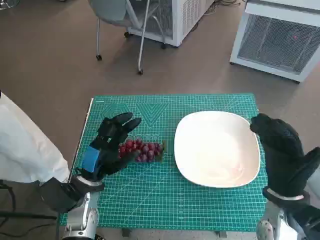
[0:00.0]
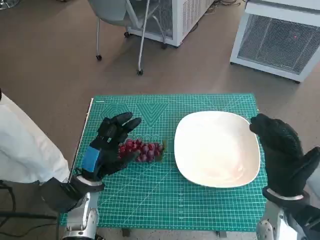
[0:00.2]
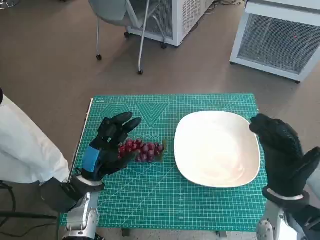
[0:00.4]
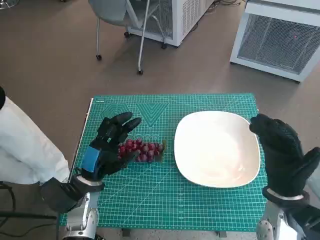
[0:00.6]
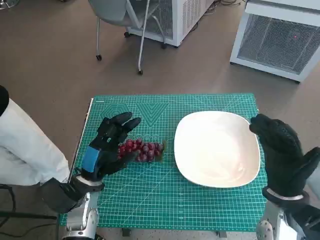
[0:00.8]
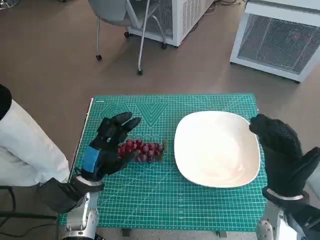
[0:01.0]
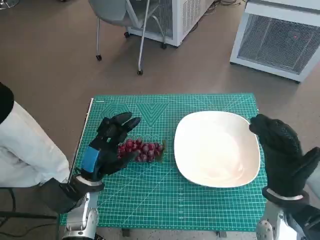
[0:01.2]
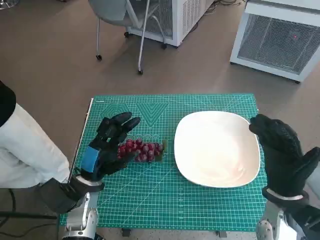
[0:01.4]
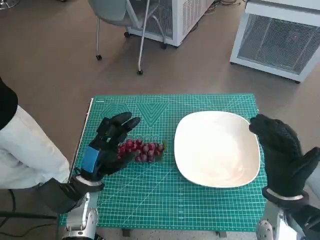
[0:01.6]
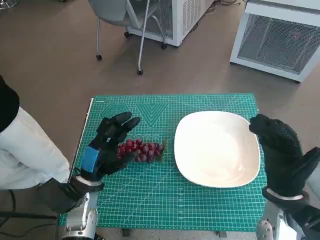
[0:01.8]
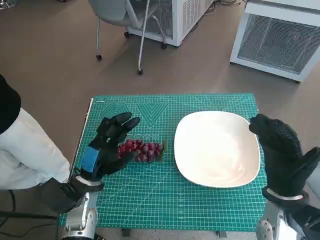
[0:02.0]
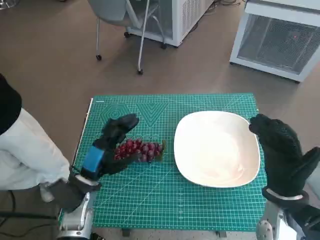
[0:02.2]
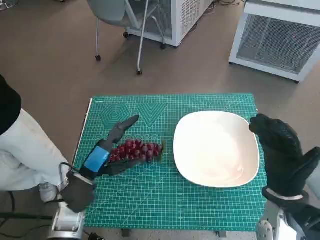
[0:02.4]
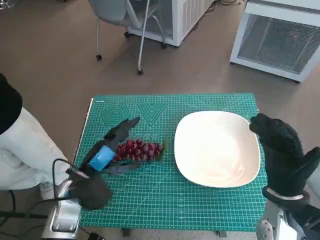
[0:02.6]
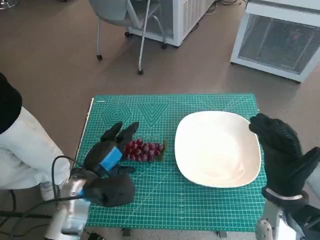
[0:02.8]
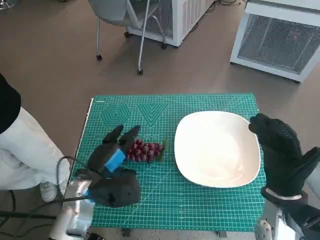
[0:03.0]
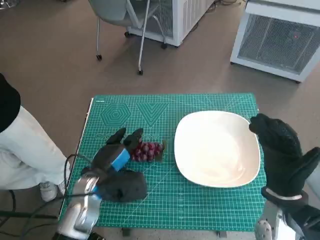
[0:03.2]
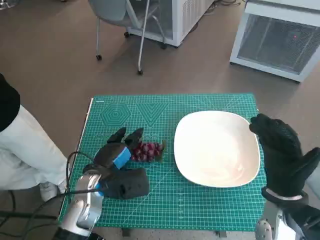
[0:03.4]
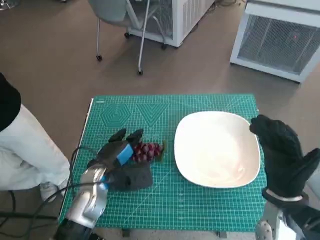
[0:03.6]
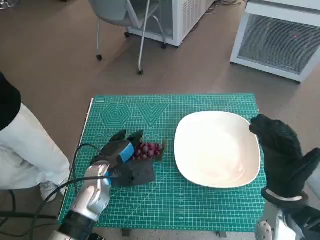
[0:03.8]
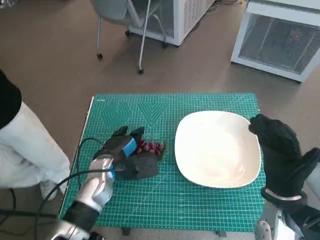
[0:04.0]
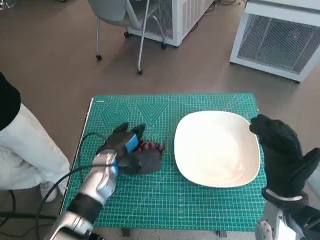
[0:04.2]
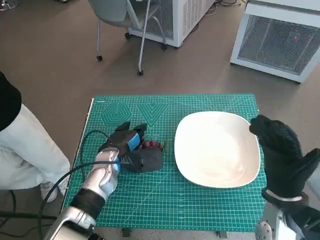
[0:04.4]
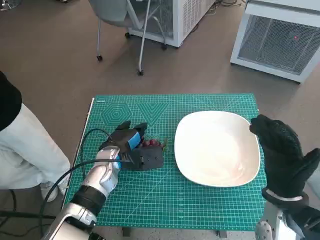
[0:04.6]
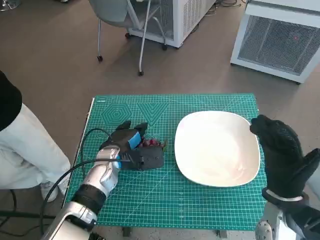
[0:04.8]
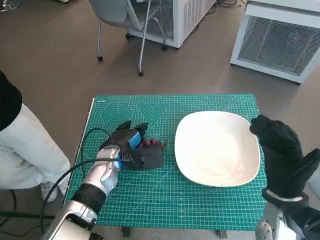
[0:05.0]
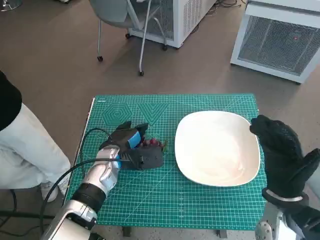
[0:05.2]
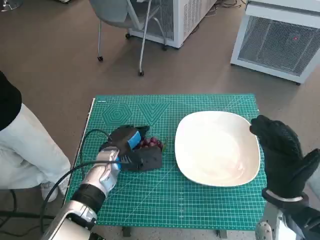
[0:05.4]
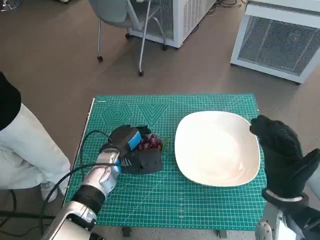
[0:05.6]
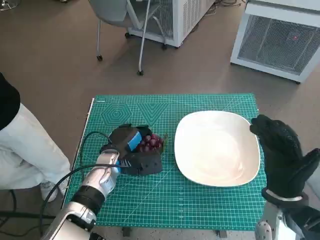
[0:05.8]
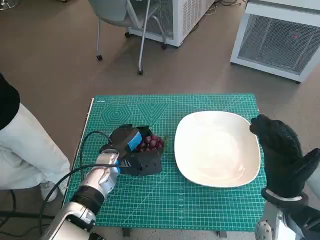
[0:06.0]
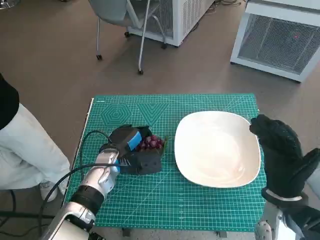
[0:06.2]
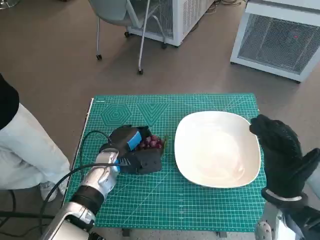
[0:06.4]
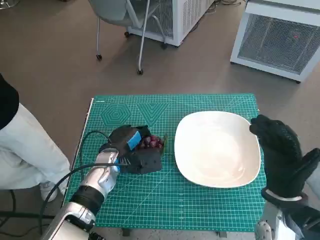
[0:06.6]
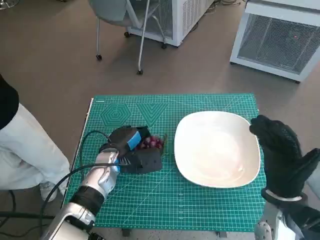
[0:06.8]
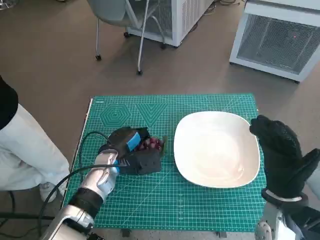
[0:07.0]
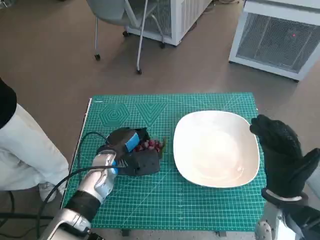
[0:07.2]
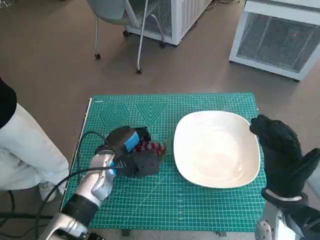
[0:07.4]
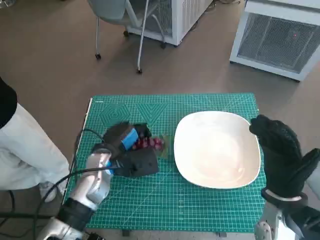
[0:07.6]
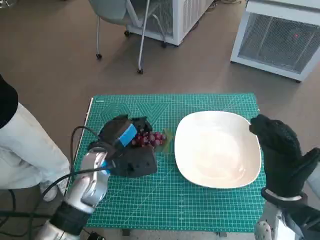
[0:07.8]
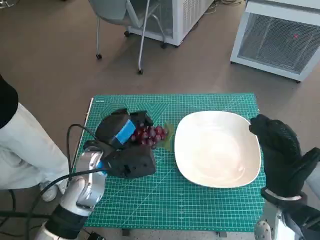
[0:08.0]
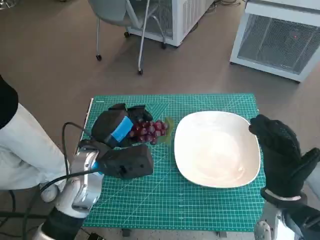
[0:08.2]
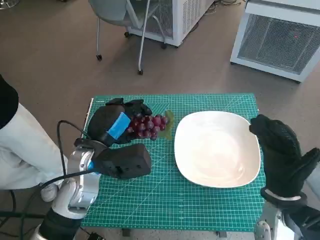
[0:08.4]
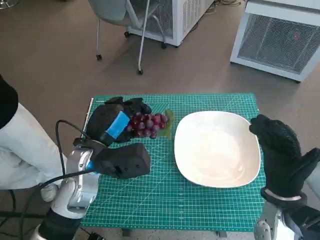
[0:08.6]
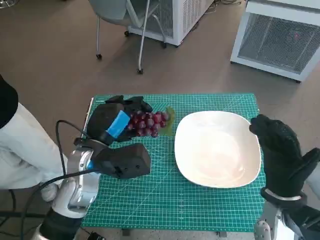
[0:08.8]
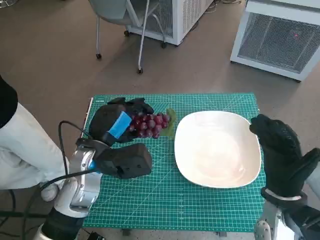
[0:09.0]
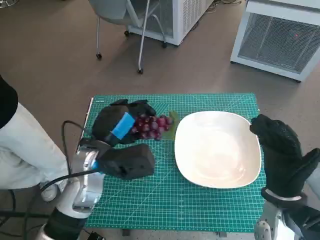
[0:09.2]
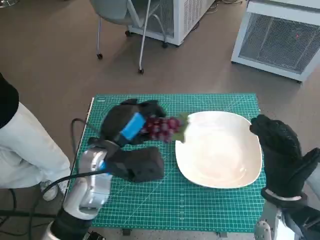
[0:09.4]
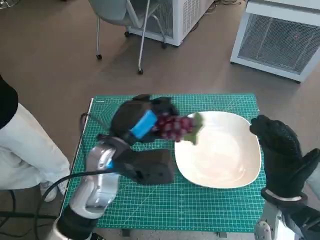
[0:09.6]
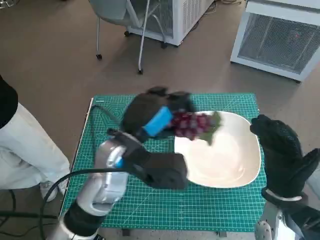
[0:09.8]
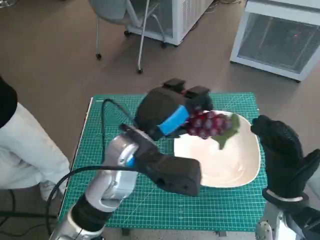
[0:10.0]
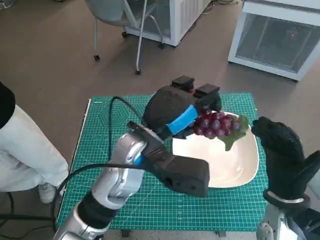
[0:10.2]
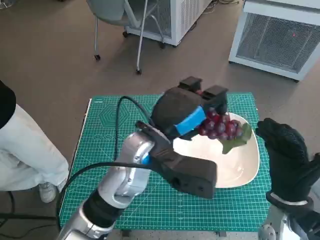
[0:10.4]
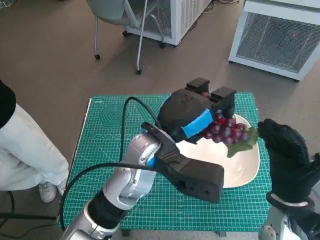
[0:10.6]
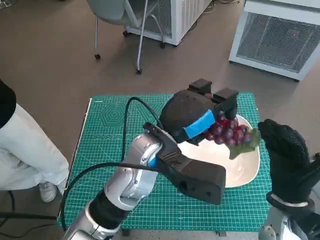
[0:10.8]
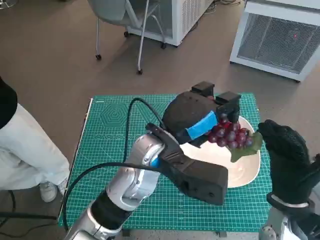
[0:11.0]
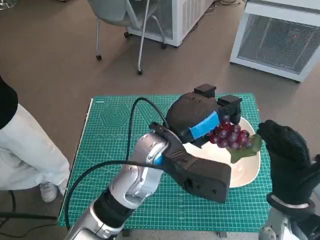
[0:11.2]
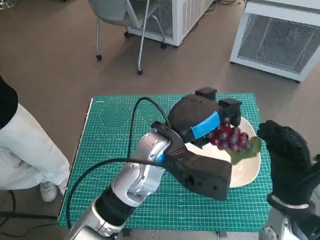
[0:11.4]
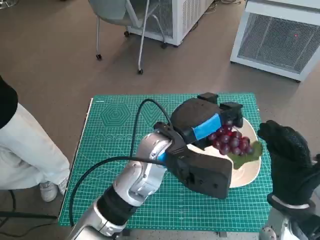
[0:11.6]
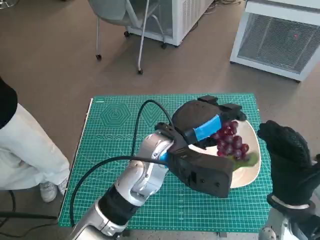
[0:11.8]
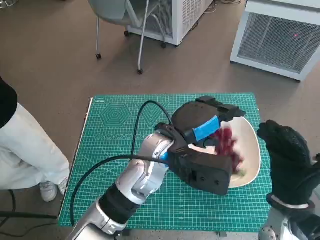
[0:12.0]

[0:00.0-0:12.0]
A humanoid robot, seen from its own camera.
Task of the whole recording: Pick up the grapes and put them on the plate.
Step, 0:00.0 to 0:07.0: Grasp the grapes with left hand.
0:03.0 to 0:04.4: The left hand is displaced forward by about 5 cm.
0:04.4 to 0:07.6: The hands make only small movements.
0:07.6 to 0:09.0: The left hand moves upward, approximately 5 cm.
0:09.0 to 0:10.4: The left hand is displaced to the right by some 10 cm.

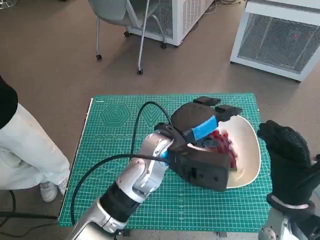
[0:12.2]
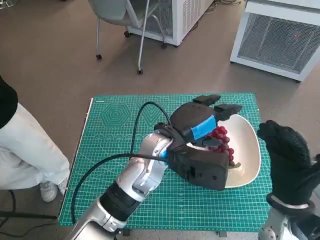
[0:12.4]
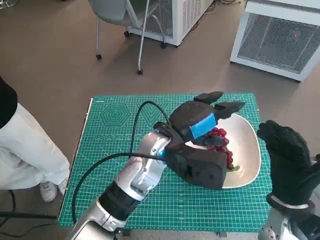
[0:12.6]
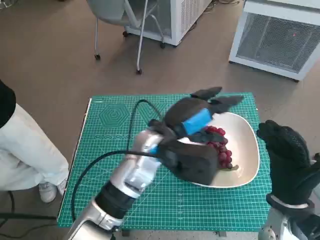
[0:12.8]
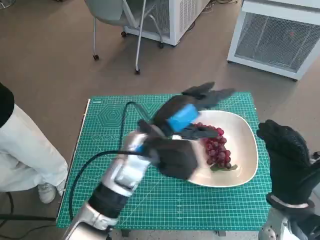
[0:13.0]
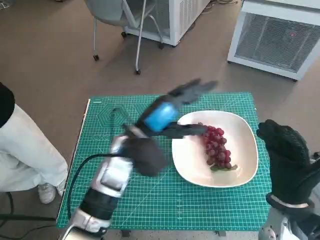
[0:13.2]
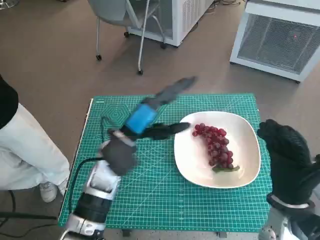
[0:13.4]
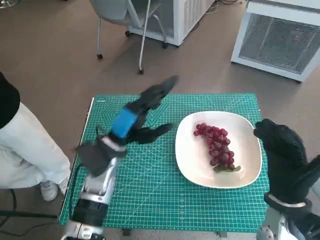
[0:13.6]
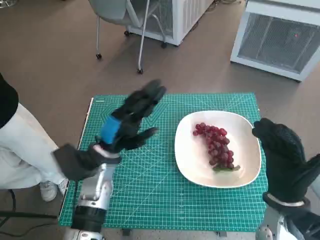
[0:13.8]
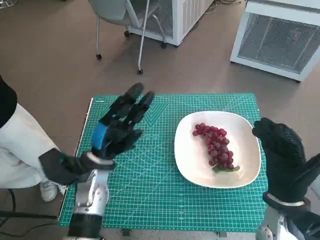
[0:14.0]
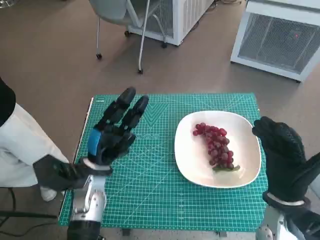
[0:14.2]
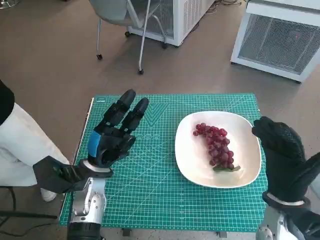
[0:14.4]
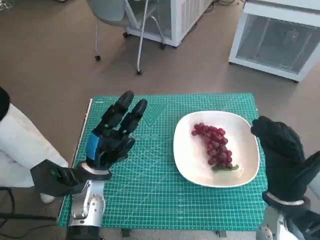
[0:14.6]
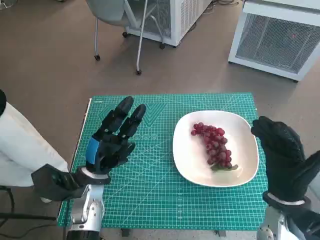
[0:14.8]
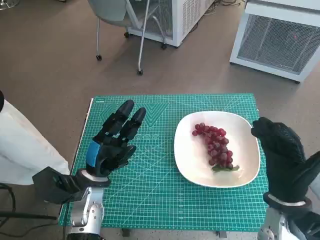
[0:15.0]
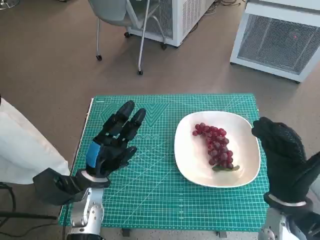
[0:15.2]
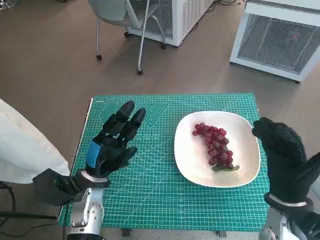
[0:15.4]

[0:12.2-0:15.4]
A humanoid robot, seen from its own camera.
Task of the whole recording: Pick up the grapes and put them on the plate.
0:12.2 to 0:13.8: The left hand heads to the left and downward, covering roughly 15 cm.
0:13.8 to 0:15.4: The left hand changes place by roughly 5 cm.

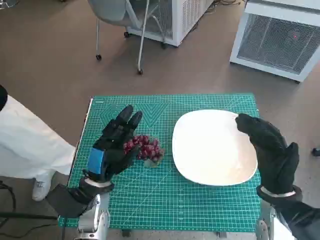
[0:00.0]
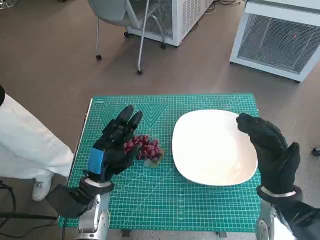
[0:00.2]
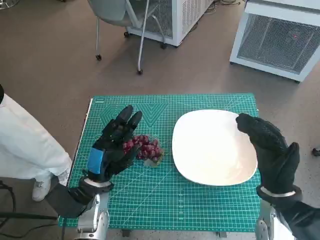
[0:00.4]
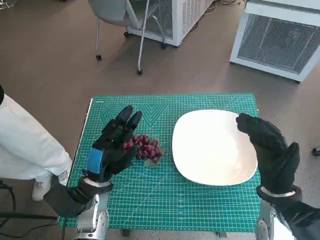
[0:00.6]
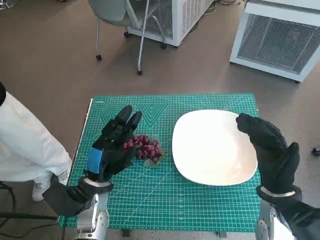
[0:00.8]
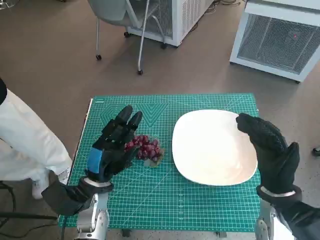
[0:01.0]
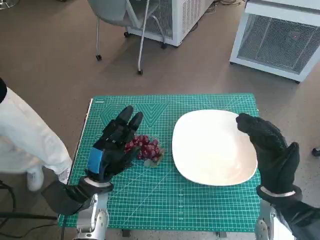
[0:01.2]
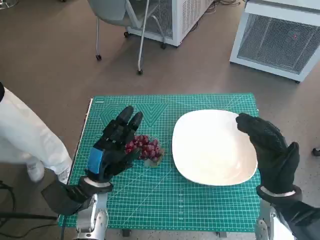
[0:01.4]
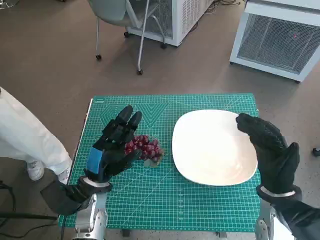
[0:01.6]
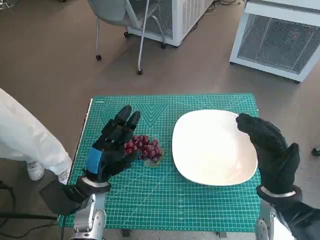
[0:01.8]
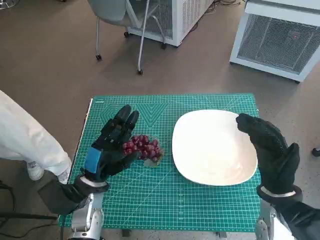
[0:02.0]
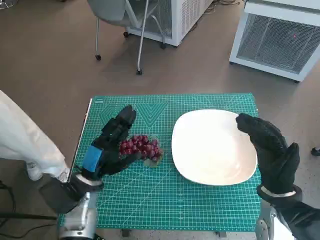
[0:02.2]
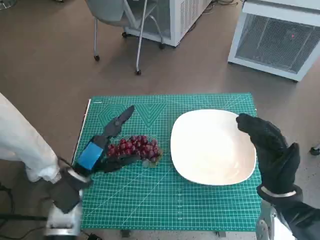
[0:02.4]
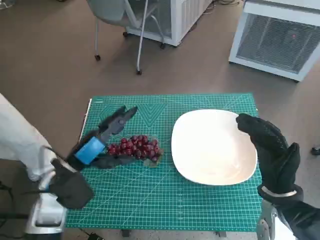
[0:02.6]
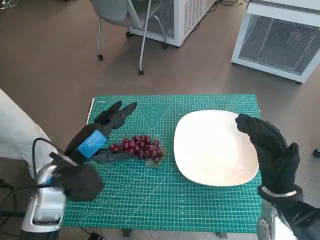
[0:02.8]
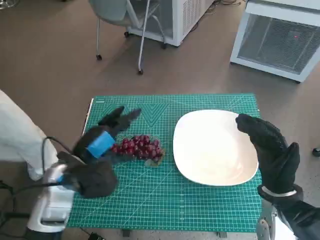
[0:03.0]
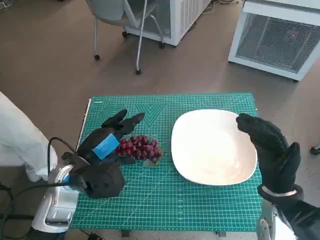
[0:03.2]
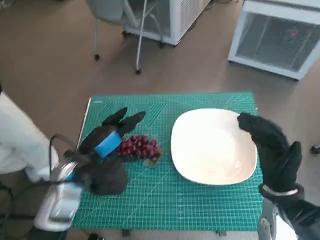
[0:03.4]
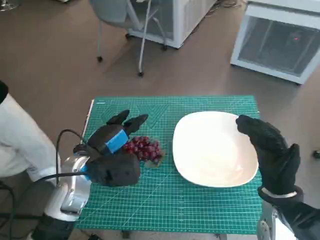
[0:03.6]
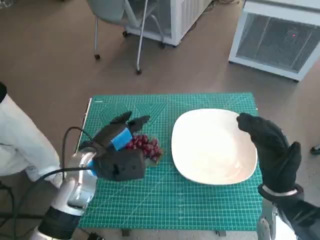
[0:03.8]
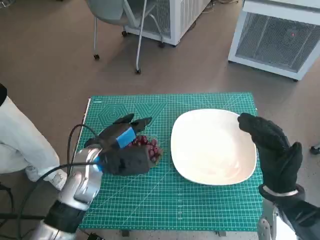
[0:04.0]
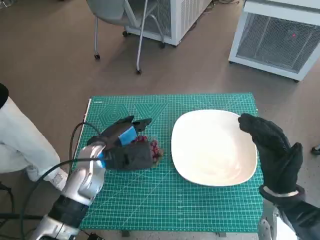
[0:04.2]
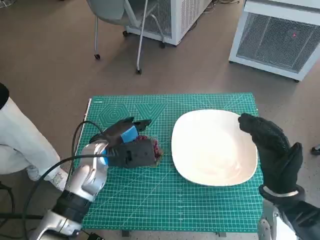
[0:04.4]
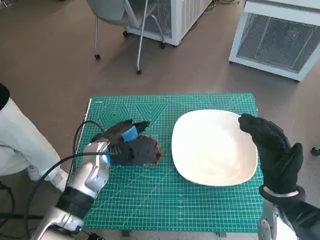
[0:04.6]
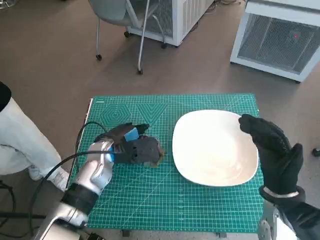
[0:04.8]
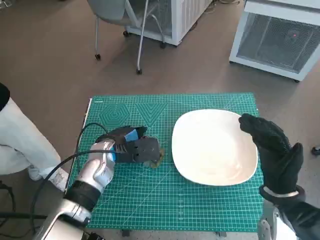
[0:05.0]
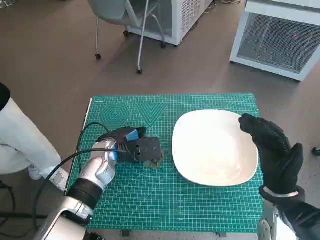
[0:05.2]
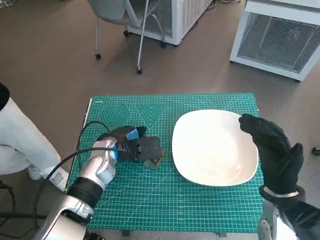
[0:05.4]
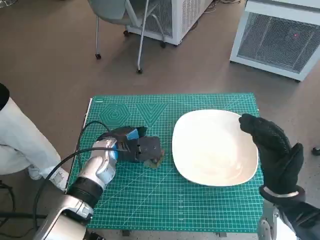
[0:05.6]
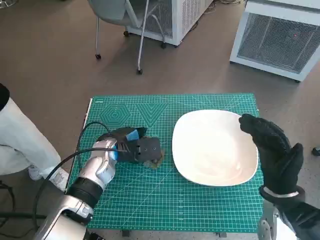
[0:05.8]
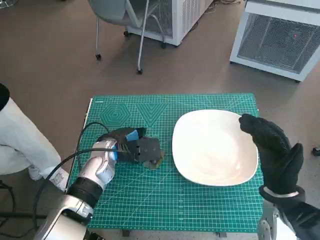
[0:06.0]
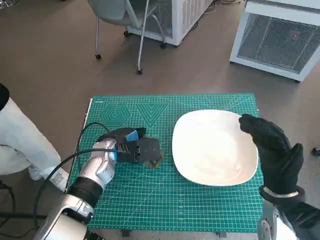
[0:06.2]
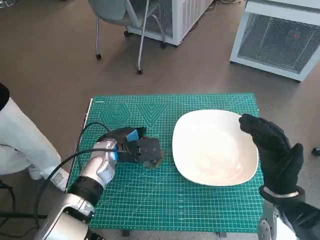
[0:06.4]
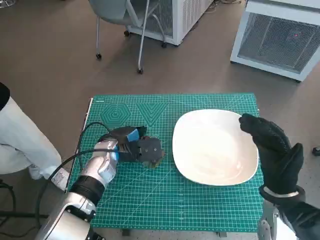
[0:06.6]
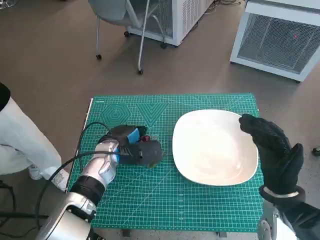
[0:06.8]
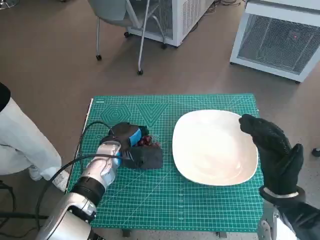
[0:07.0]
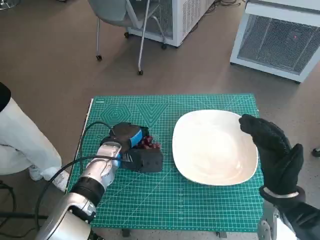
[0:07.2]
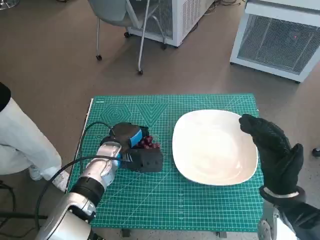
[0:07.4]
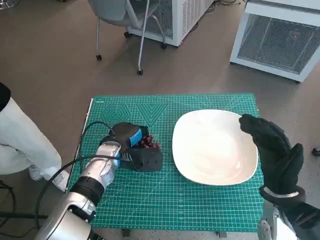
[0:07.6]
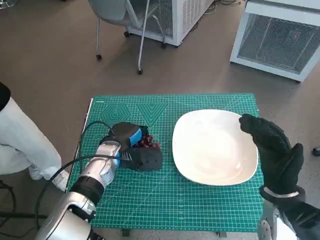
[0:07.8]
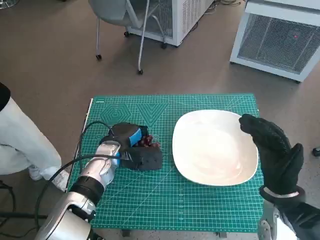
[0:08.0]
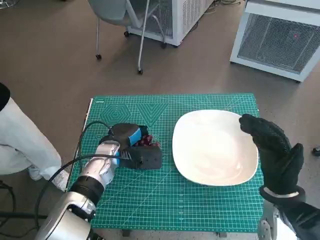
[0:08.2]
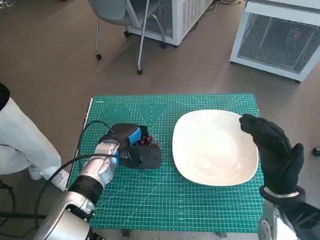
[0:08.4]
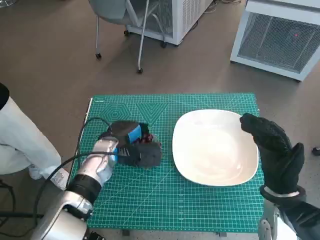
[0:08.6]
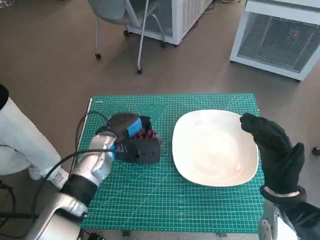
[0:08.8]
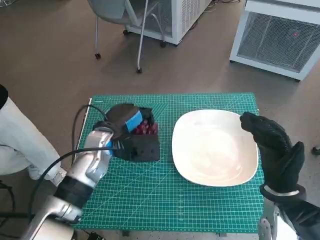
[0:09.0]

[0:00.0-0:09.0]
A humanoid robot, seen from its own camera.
Task of the whole recording: Pick up the grapes and put them on the plate.
Step, 0:00.0 to 0:06.8: Grasp the grapes with left hand.
0:01.6 to 0:03.0: The left hand moves upward, some 10 cm.
0:03.0 to 0:04.4: The left hand travels forward by roughly 5 cm.
0:04.4 to 0:07.6: The hands move only a little.
0:07.6 to 0:09.0: The left hand goes approximately 5 cm upward.
